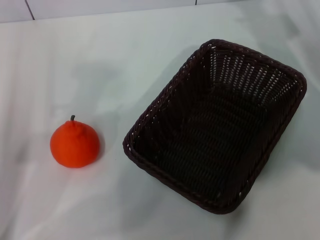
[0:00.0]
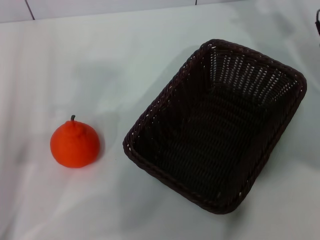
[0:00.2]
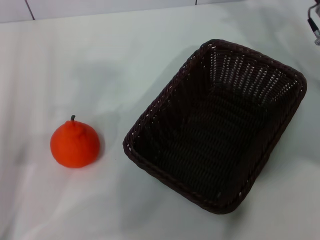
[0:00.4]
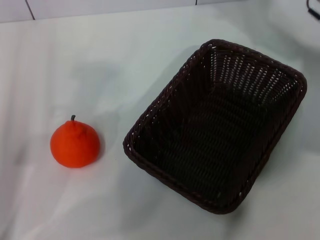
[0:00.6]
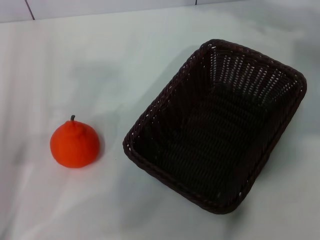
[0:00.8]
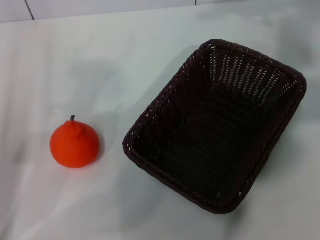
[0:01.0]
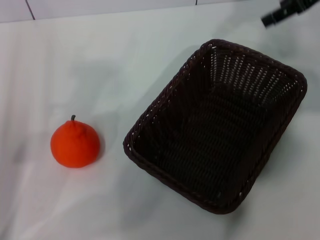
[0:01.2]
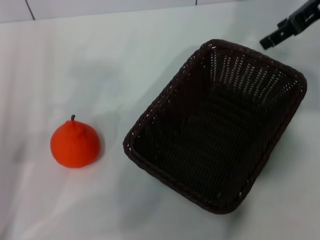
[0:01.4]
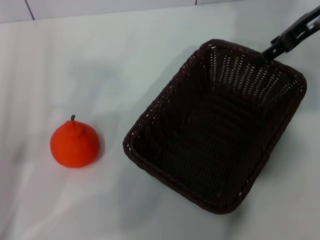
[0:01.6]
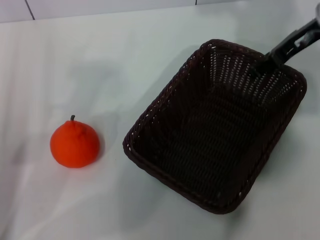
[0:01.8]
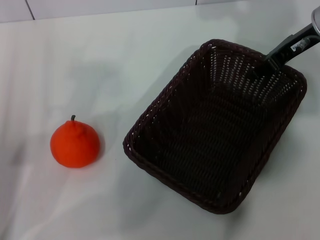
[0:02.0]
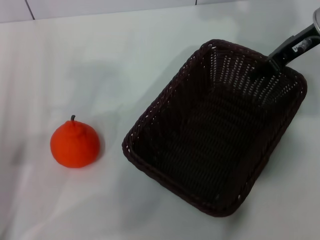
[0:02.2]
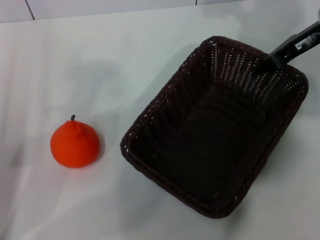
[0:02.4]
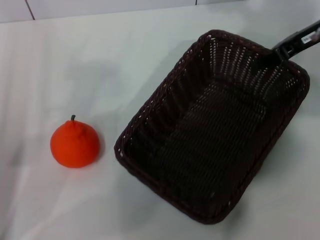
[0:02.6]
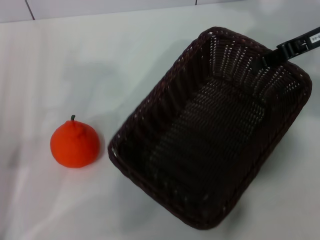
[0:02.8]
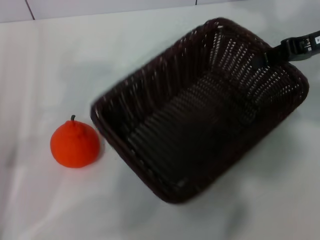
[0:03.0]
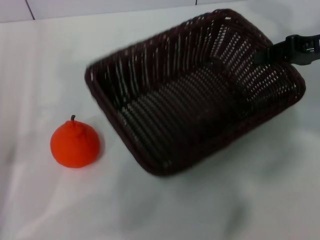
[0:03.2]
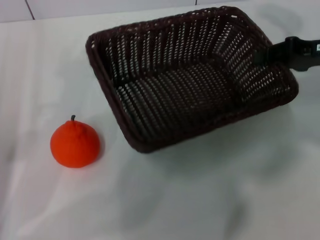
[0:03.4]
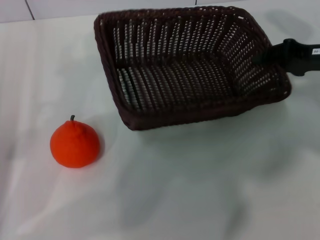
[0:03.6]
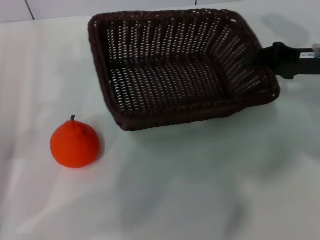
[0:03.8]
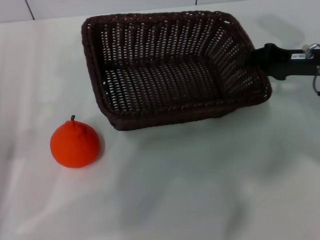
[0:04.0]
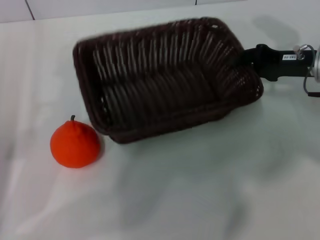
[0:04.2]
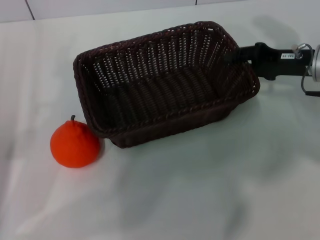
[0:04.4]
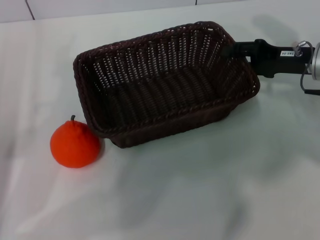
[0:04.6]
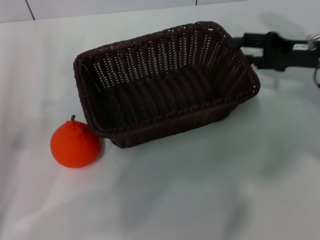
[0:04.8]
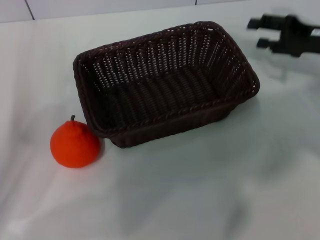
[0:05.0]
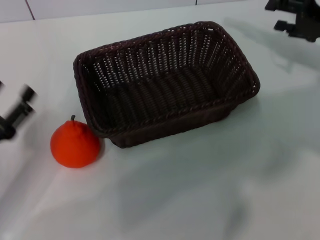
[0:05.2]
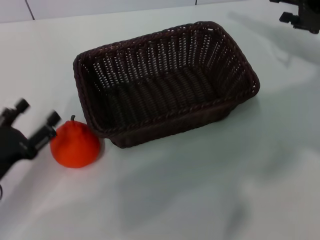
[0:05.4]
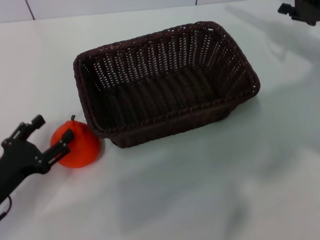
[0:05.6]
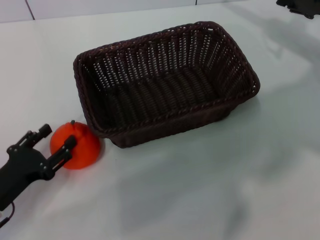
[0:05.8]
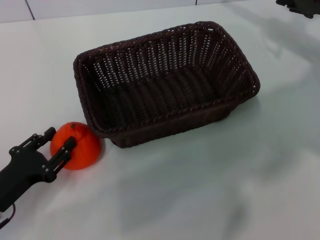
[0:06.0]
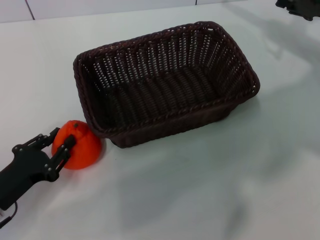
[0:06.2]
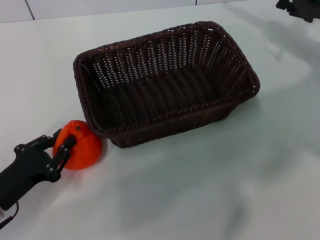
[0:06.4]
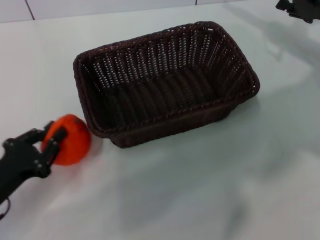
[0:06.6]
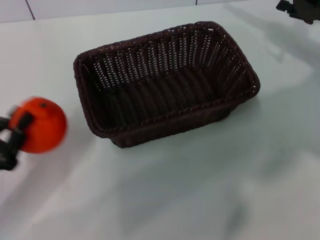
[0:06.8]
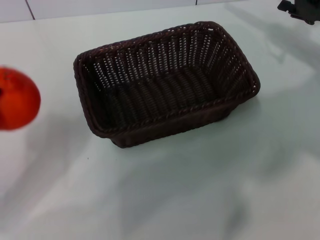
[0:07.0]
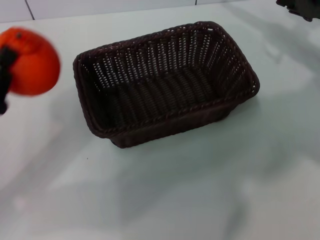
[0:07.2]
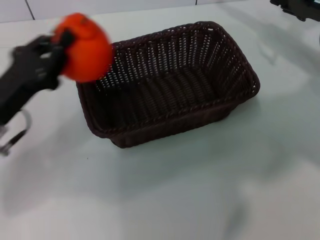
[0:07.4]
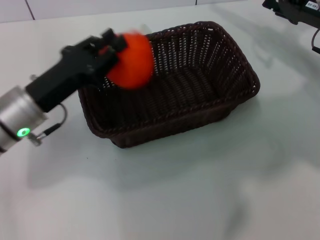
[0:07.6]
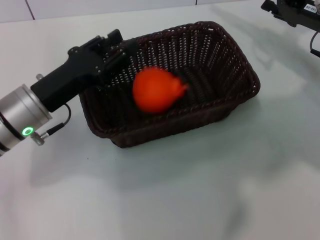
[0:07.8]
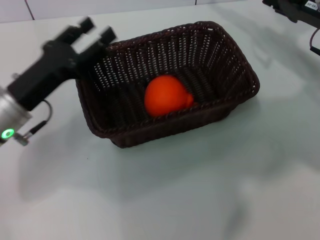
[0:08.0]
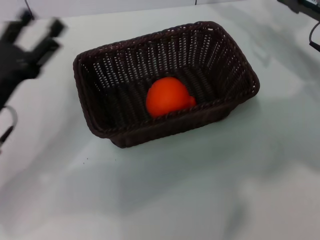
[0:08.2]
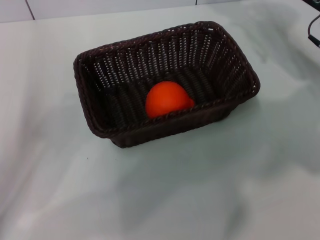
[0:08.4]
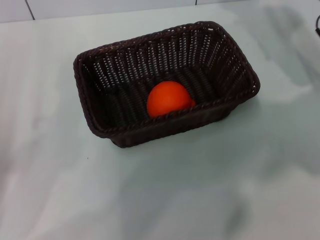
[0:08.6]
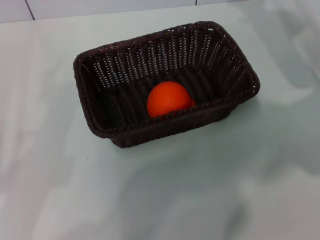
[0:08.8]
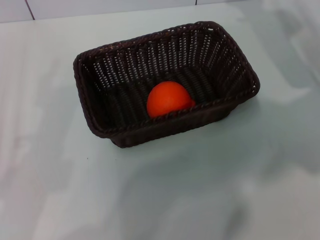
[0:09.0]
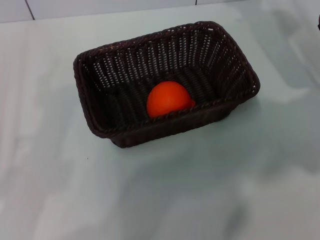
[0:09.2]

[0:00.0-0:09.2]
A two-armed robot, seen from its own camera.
Task of the whole recording: the right gripper pick up the black basket and place it horizontally in the middle of the table, the left gripper pick up the orange and place it into the black basket.
Step, 0:00.0 to 0:02.8: Pick up the dark basket with the right gripper.
Step, 0:03.0 to 0:04.8: Place the dark basket in the center of view with the right gripper.
Step, 0:05.0 to 0:06.8: Pick up the orange with the left gripper.
Step, 0:07.0 to 0:07.8: Place the orange into the dark basket with the left gripper.
0:00.0 to 0:01.6: The right gripper is displaced upward by roughly 10 cm.
0:01.6 to 0:03.0: The right gripper shifts by some 5 cm, and closes its fingers.
0:03.0 to 0:04.6: The right gripper travels downward by approximately 10 cm, and opens up.
0:04.6 to 0:06.2: The left gripper is displaced downward by some 5 cm, and closes; the right gripper changes place by roughly 5 cm.
0:06.2 to 0:07.6: The left gripper goes roughly 15 cm forward, upward and to the right, and closes.
0:07.6 to 0:09.2: The left gripper is displaced backward and to the left by about 20 cm, and opens its fingers.

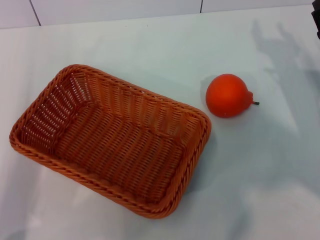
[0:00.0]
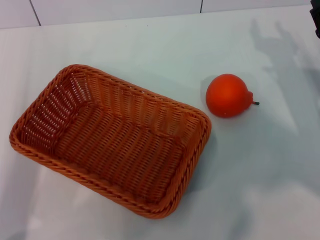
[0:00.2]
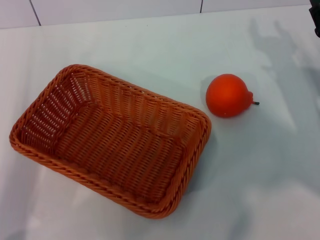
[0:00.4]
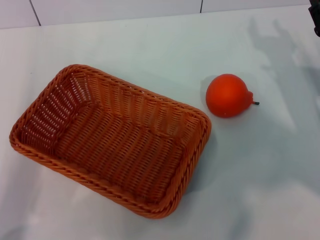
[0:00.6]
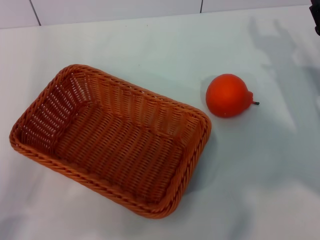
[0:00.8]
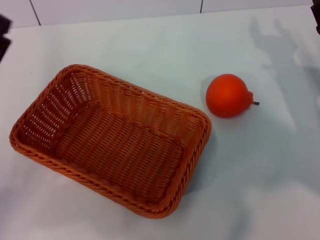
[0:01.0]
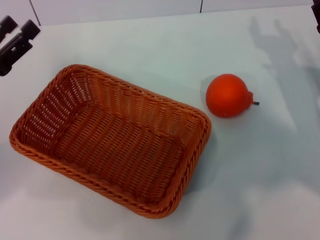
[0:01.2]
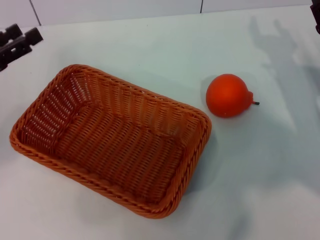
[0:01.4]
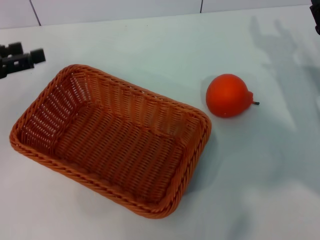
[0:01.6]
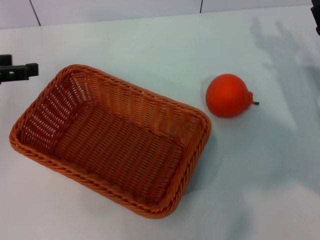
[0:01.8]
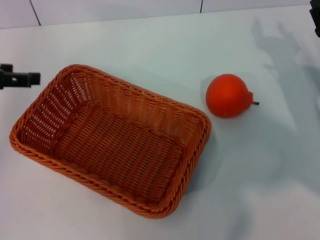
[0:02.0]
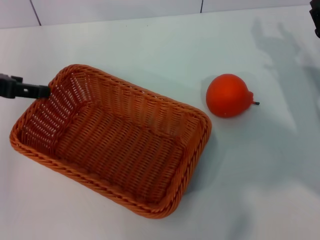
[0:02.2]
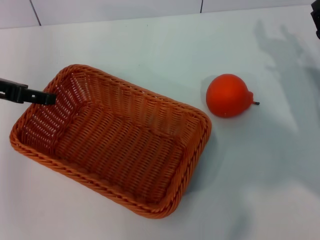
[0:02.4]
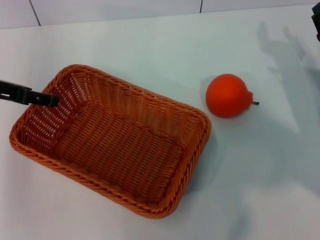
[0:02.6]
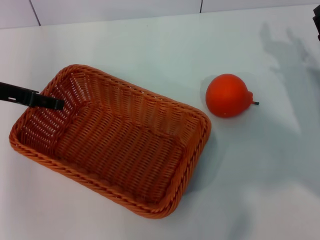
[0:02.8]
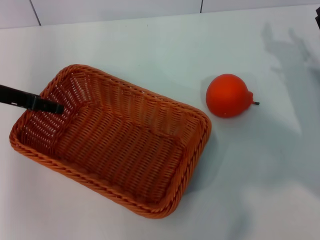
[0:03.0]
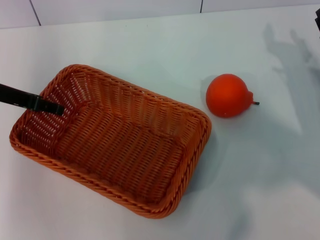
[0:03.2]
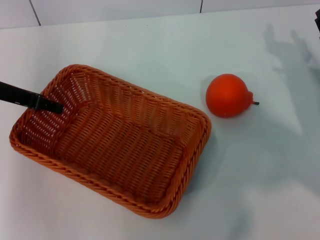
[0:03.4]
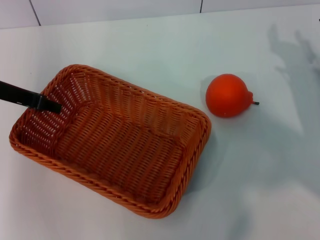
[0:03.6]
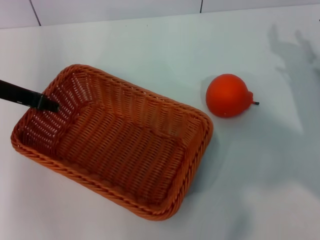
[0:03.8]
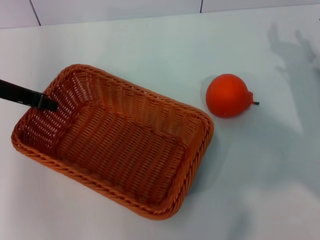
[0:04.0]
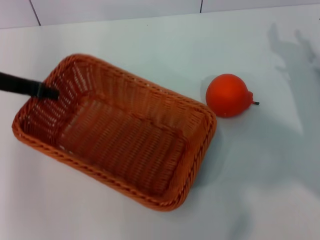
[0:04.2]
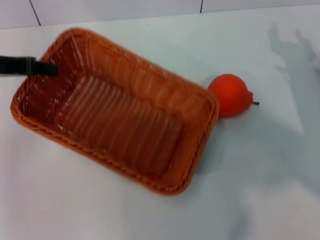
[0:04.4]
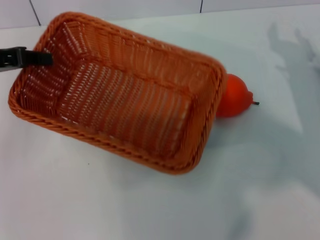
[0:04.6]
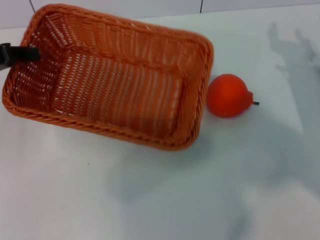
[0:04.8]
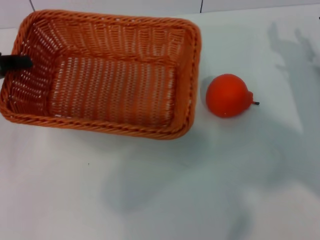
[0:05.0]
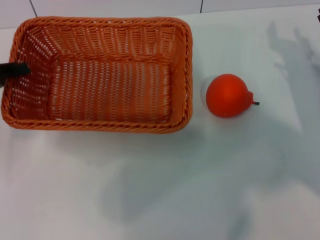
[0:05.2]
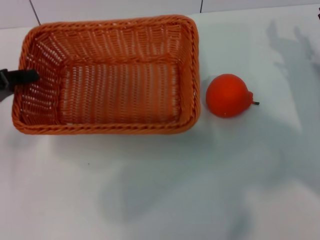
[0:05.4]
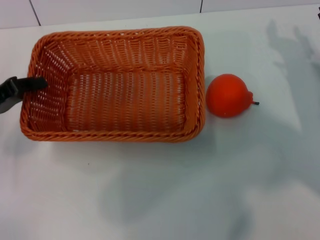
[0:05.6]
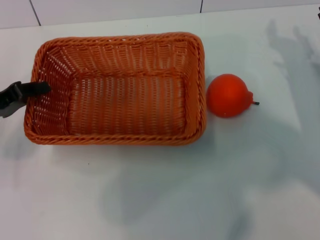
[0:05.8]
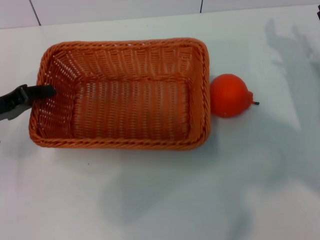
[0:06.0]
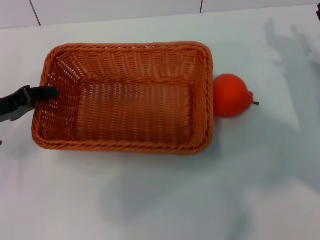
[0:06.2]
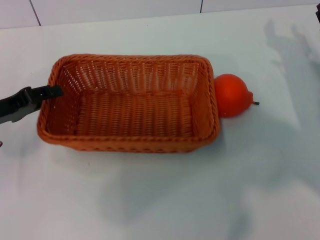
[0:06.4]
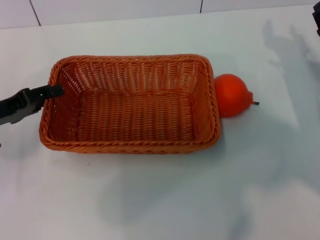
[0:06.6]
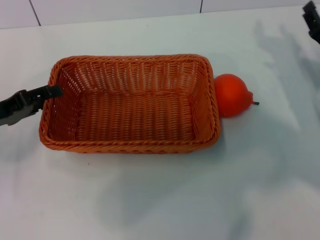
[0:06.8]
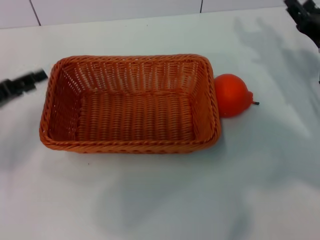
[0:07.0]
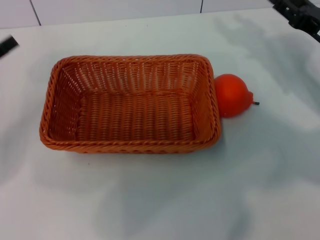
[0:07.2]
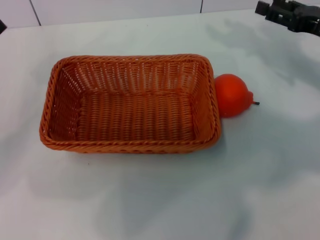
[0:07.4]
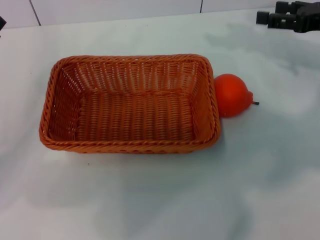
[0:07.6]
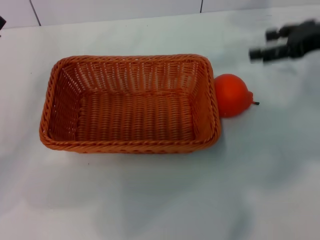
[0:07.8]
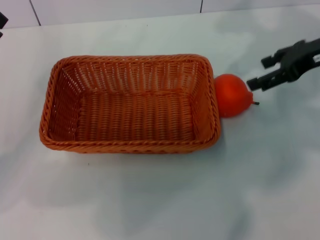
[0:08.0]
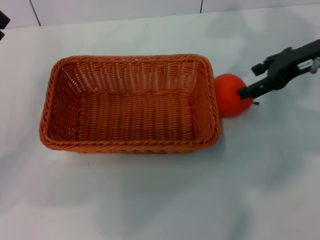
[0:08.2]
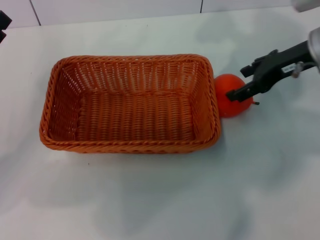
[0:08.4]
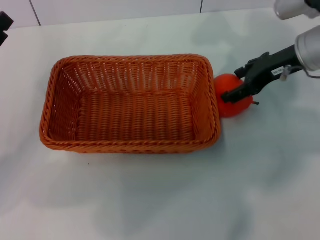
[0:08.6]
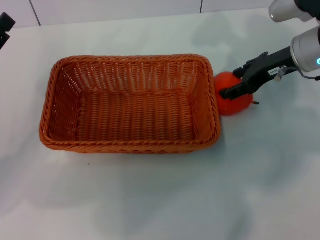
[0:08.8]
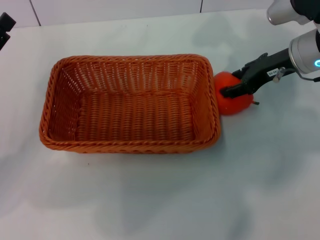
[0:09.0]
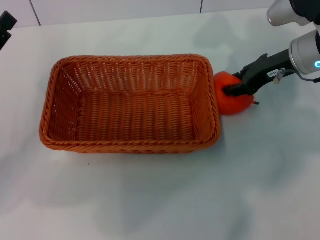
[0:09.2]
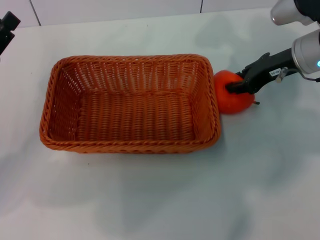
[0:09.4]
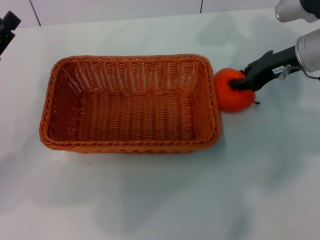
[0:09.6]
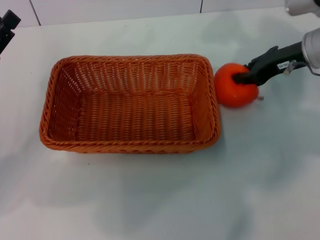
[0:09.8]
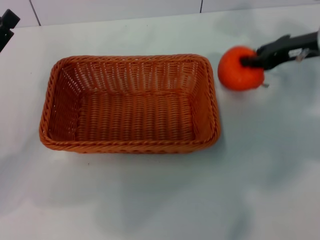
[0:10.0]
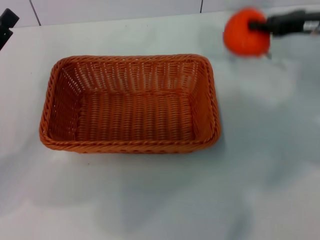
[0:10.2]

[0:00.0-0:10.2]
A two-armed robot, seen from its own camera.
Task of the whole recording: the left gripper pick up the yellow basket and place it horizontally in the middle of the table, the right gripper pick up the orange and place it into the yellow basket.
Step, 0:00.0 to 0:04.2: Pick up the light basket with the left gripper.
Step, 0:04.4 to 0:07.0: Place the light basket in the center of view with the left gripper.
Step, 0:07.2 to 0:10.0: Pick up the orange with the right gripper.
0:00.0 to 0:01.4: The left gripper travels forward, upward and to the left by roughly 10 cm.
0:01.4 to 0:03.0: The left gripper shifts some 10 cm to the right and forward.
0:03.0 to 0:04.4: The left gripper closes its fingers.
0:04.4 to 0:05.8: The left gripper travels downward by approximately 10 cm.
0:05.8 to 0:07.2: The right gripper changes place by approximately 5 cm. Meanwhile the left gripper opens up.
0:07.2 to 0:08.8: The right gripper moves to the left and upward, some 10 cm.
0:08.8 to 0:10.2: The right gripper is displaced to the right by approximately 5 cm, and closes.

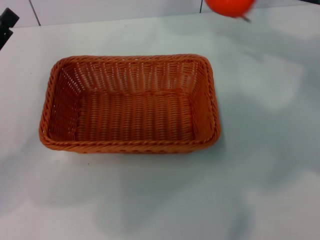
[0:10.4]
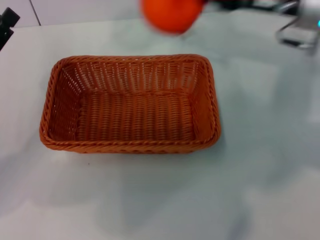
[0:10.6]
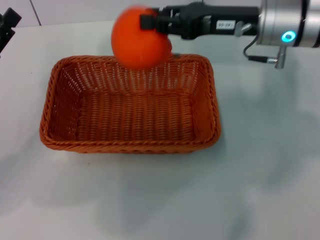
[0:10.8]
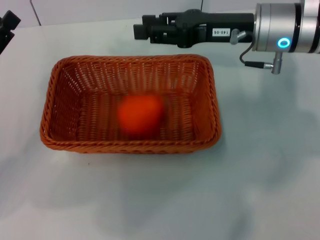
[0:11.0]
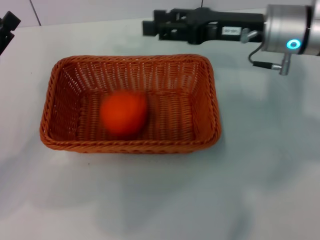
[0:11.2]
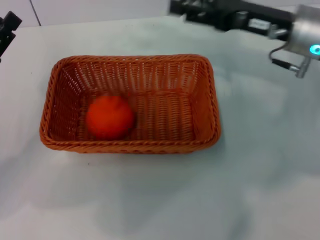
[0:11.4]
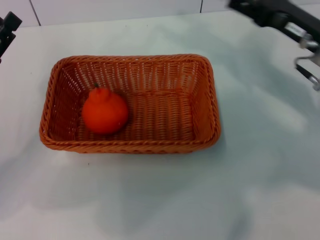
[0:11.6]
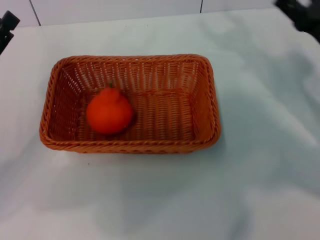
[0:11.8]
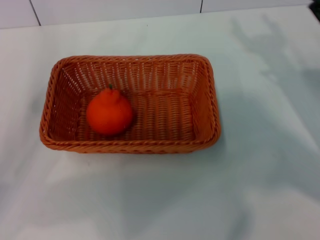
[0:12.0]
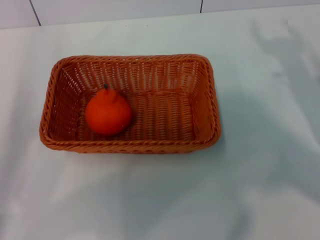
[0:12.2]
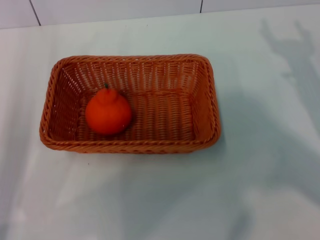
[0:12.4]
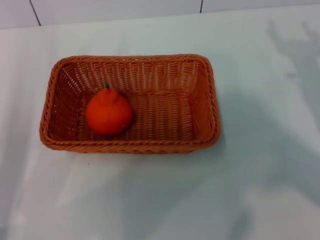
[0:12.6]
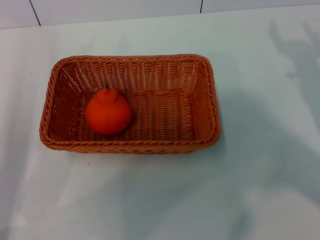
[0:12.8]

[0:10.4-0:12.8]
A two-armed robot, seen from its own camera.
Task of the whole recording: the left gripper pick up the yellow basket and place it horizontally in the middle of the table, the right gripper pick up the orange and place it into the yellow basket.
Step, 0:10.4 to 0:11.2: Place the orange into the light basket with the right gripper.
0:10.4 to 0:11.6: The right gripper heads downward, covering approximately 5 cm, travels to the left and back again, about 10 cm each way, and opens its fingers.
0:11.6 to 0:12.8: The left gripper goes roughly 5 cm backward, while the right gripper heads to the right, downward and backward, covering some 10 cm.
